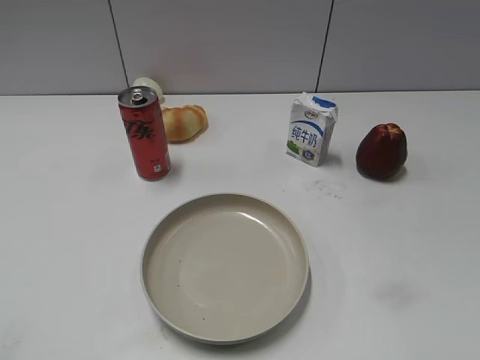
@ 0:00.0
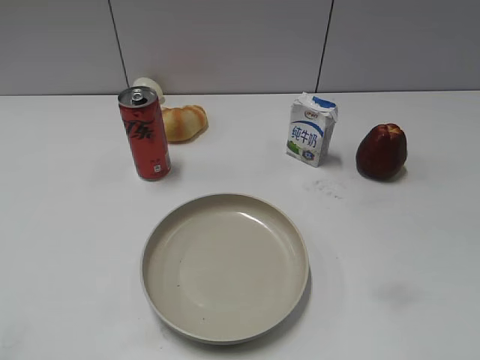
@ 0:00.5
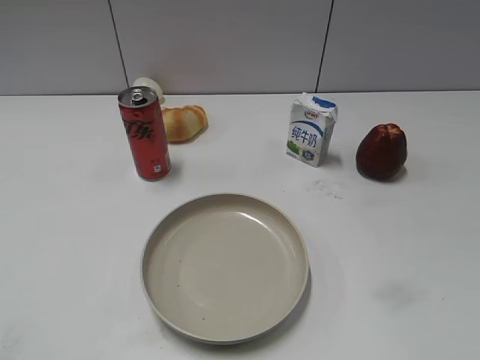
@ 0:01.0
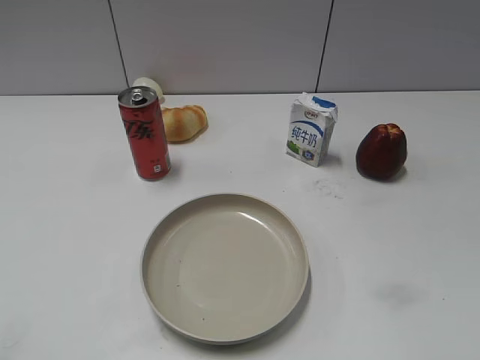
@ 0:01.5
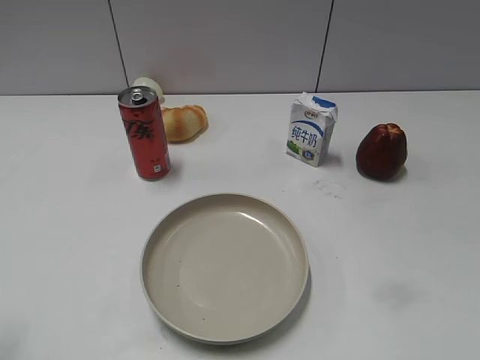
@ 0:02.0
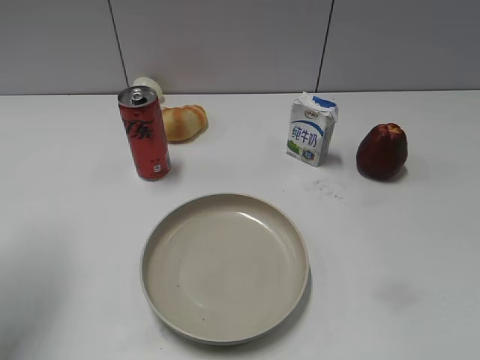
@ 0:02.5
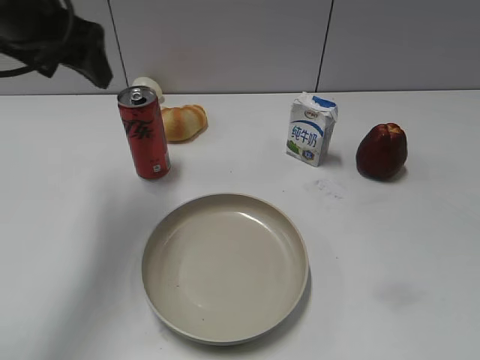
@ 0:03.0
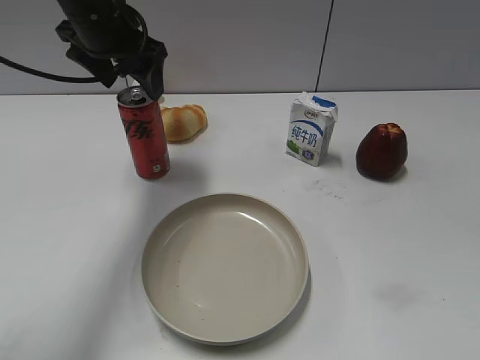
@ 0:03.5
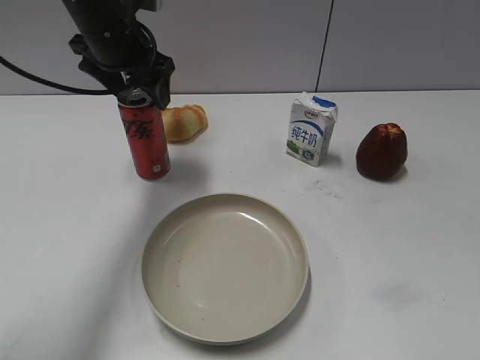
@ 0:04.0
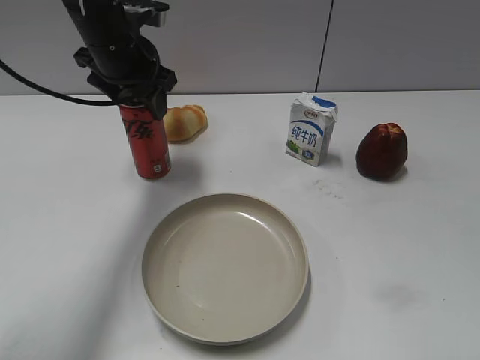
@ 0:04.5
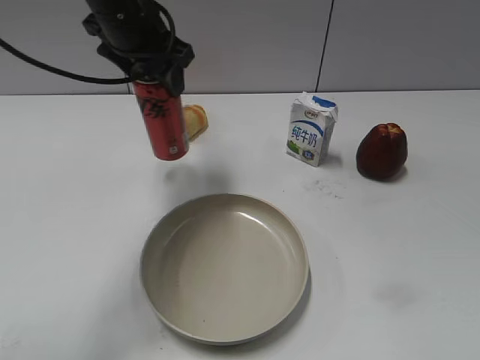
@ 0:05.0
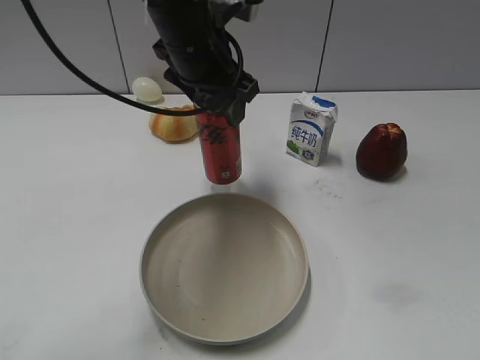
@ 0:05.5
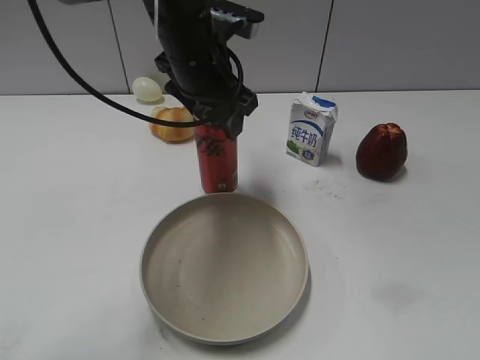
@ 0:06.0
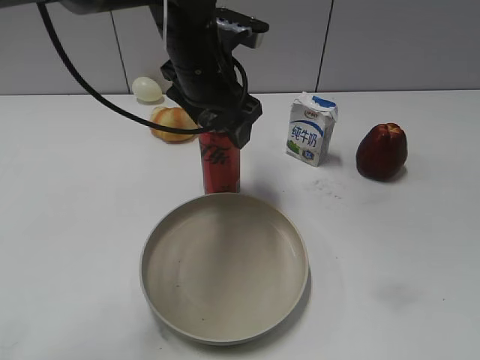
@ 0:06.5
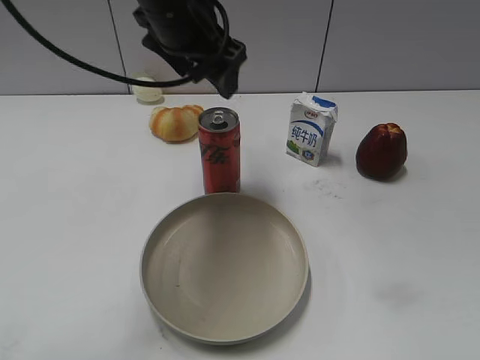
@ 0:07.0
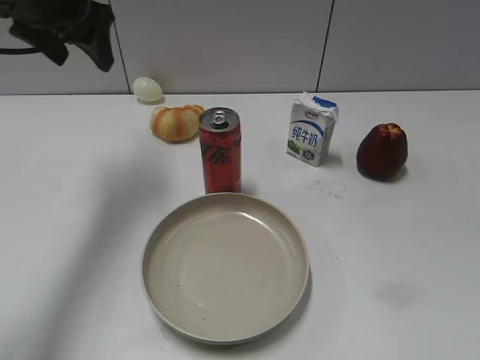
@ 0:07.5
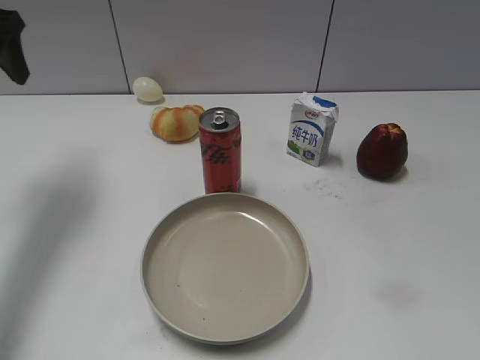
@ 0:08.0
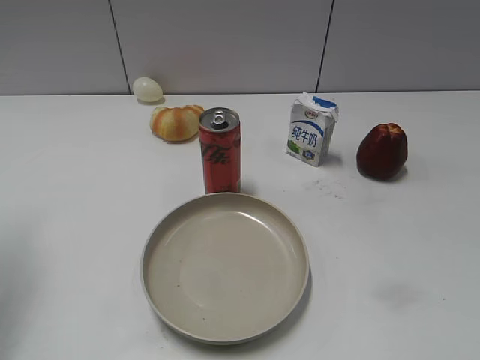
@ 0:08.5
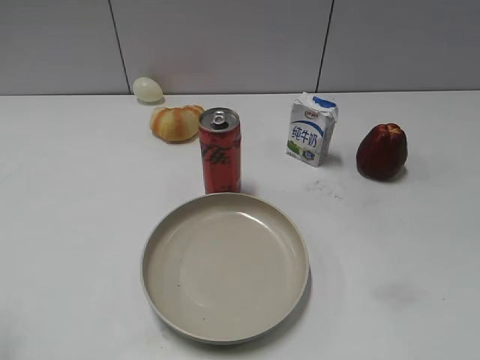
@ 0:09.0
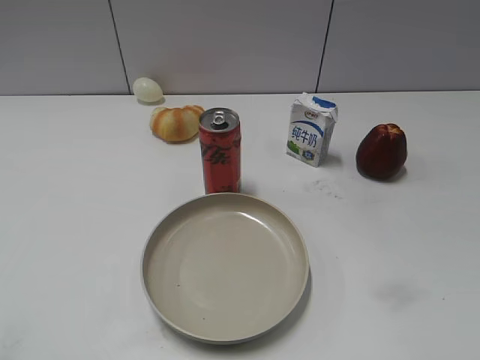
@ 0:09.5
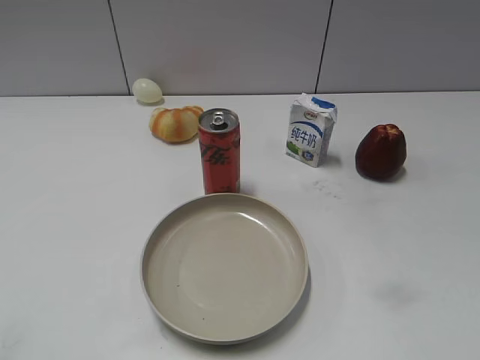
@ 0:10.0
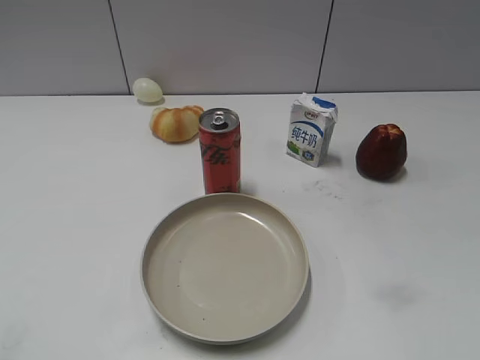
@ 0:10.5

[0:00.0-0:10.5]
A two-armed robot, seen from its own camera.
Step, 0:01.5 to 0:04.5: Grasp the cola with left gripper.
Step, 0:05.0 to 0:06.5: Place the cola on the table with left gripper.
0:02.0 to 0:04.0: The left gripper travels forward and to the right by roughly 35 cm, and opens its fingers.
0:04.0 to 0:06.5: The left gripper goes some 10 cm to the right and backward, and closes, then reopens.
0:06.5 to 0:08.5: The left gripper moves to the left, approximately 30 cm, and closes its fingers.
0:08.5 to 0:10.5: The left gripper heads backward, covering about 25 cm.
